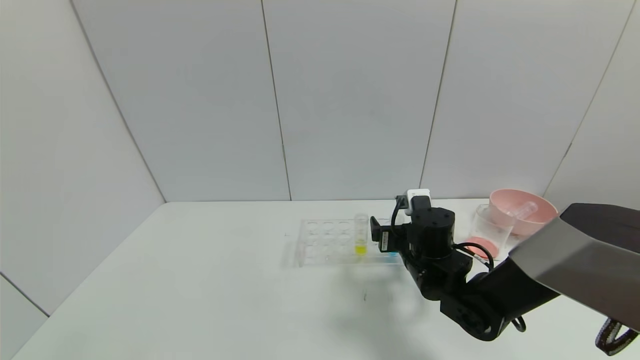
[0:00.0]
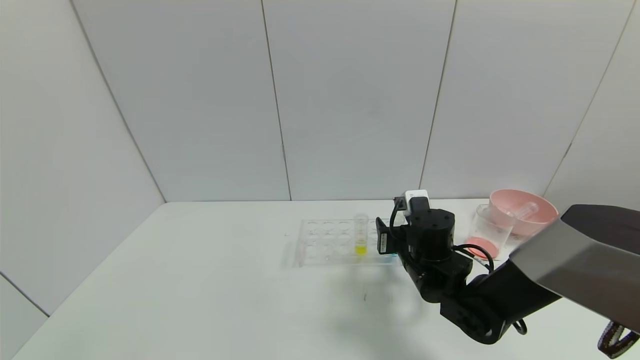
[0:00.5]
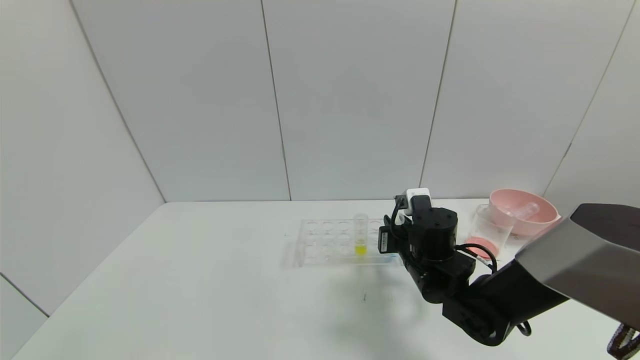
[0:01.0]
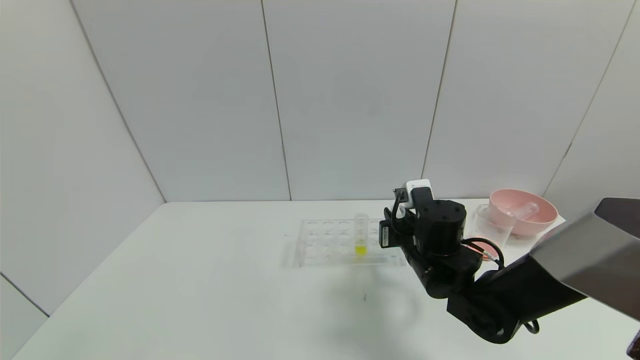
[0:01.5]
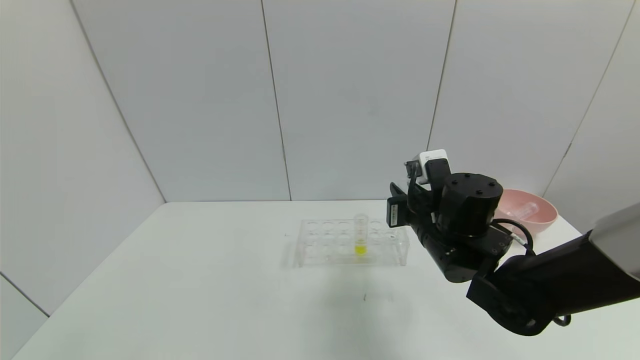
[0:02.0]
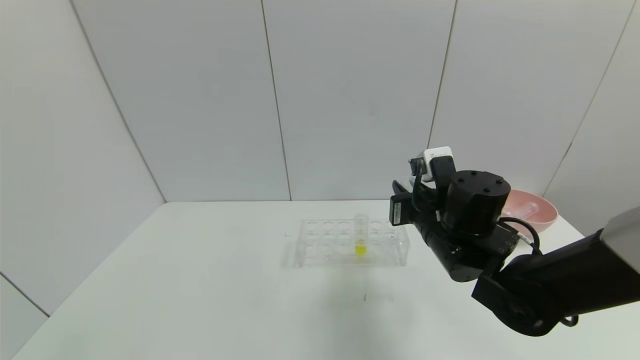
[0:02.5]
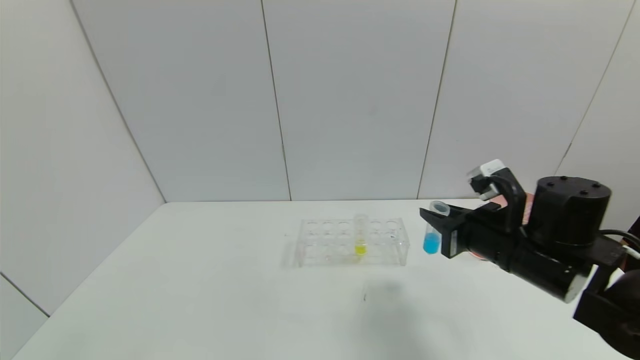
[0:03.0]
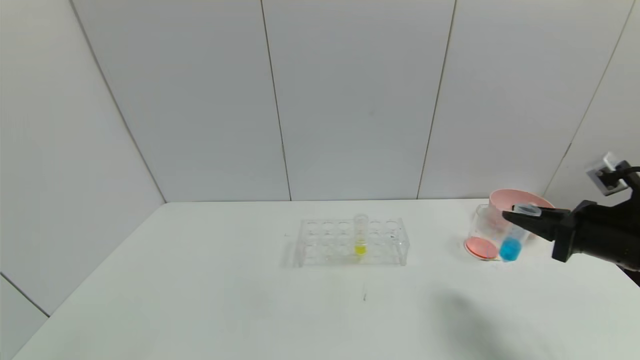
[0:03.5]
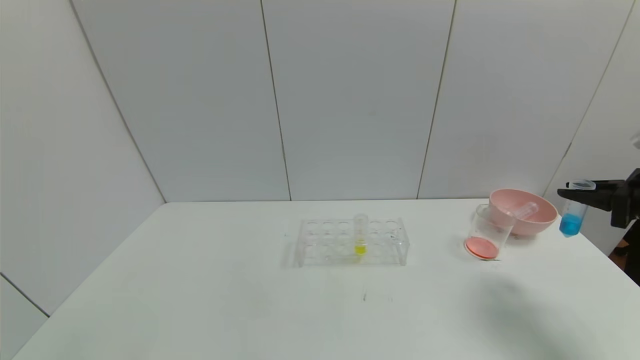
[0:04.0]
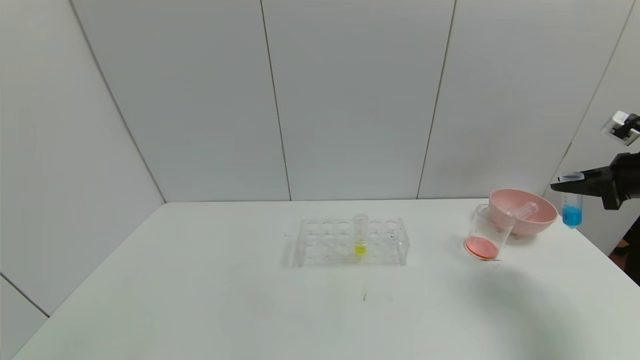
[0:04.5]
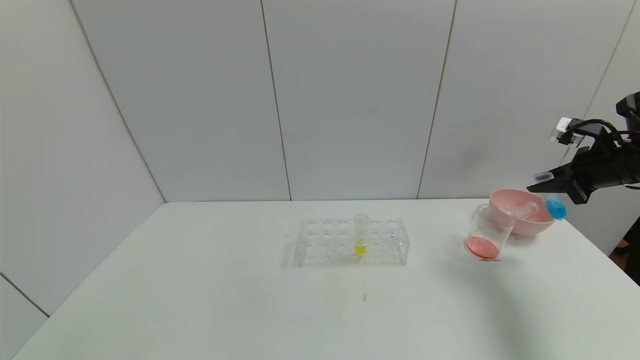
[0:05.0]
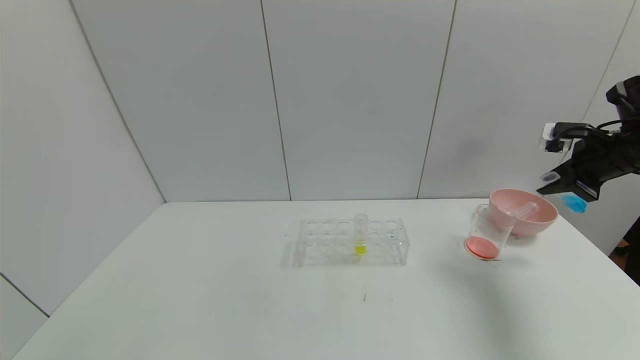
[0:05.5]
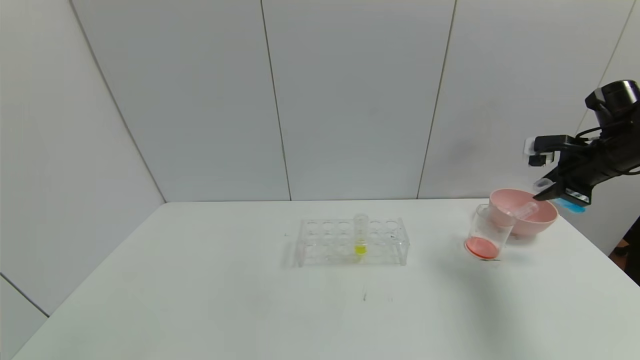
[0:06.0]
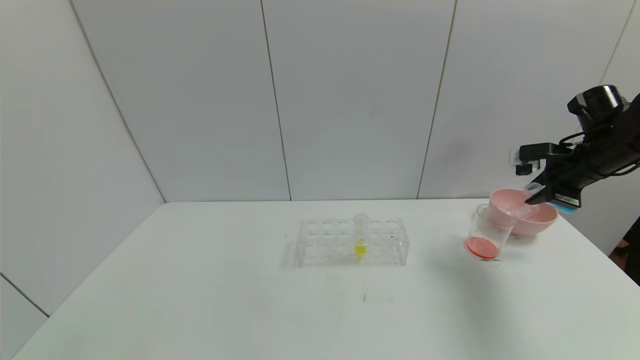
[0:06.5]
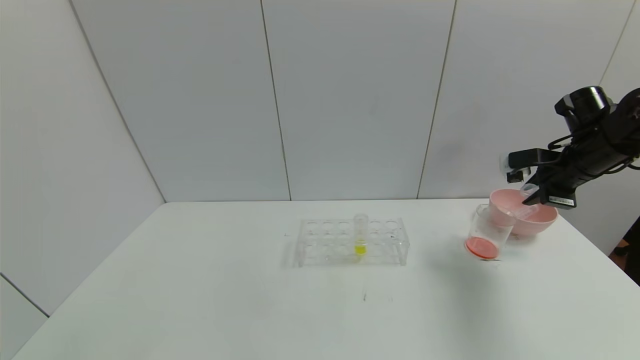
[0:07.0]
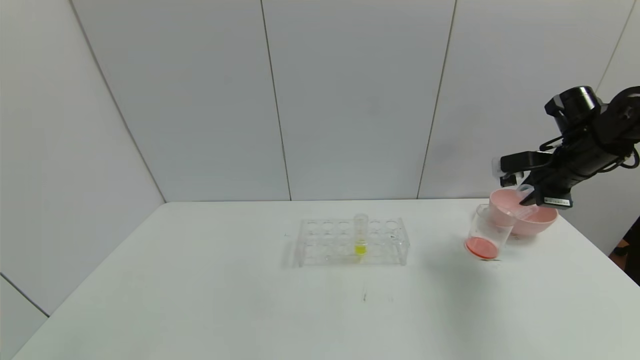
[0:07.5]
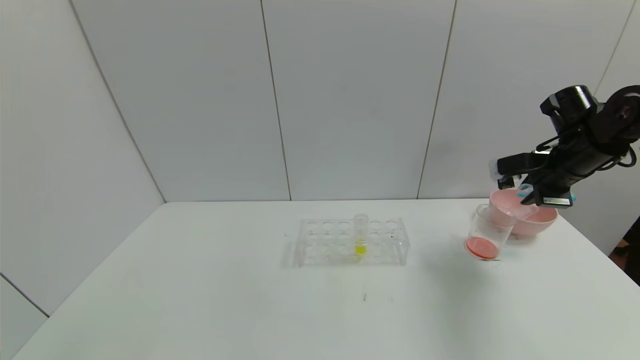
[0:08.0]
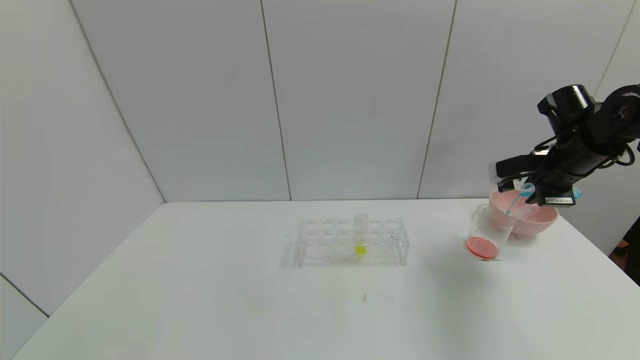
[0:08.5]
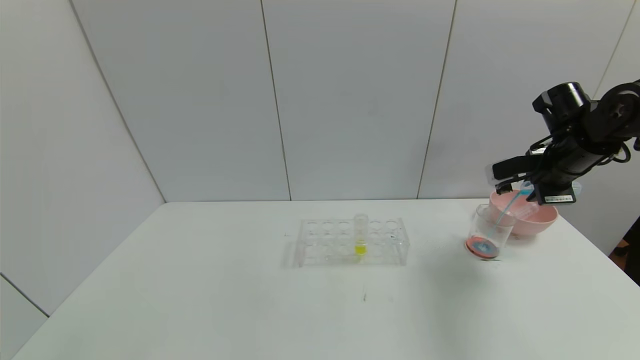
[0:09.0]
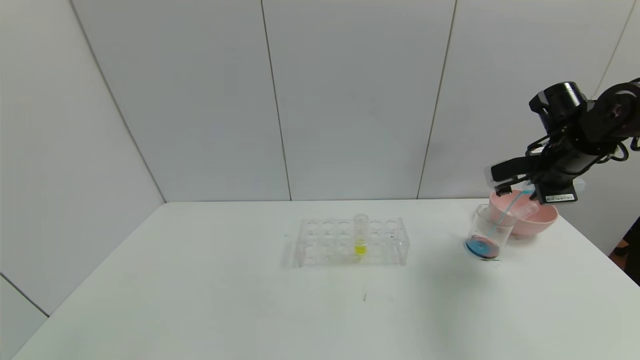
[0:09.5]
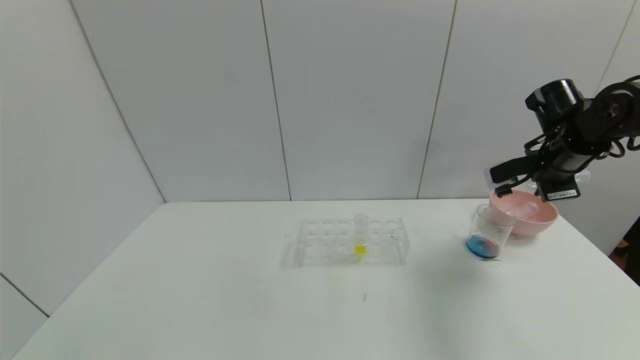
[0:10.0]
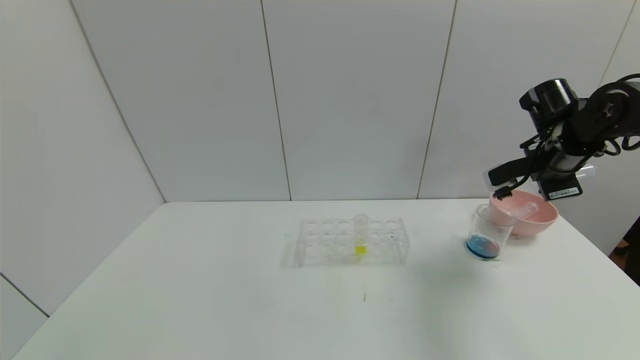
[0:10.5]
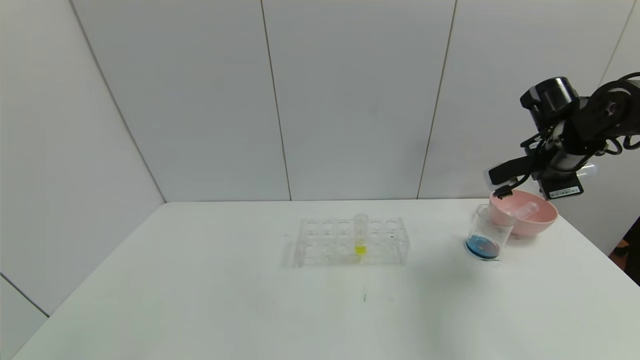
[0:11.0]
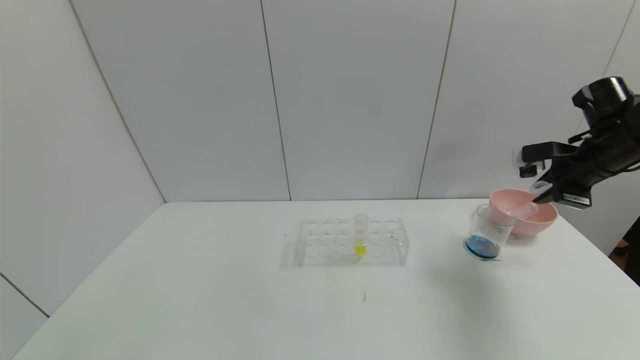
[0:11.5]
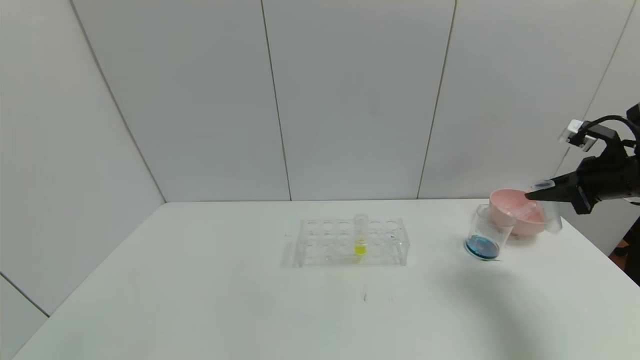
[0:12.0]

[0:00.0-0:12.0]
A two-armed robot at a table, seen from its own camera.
Task of the whole recording: pick up the test tube with red pigment and the test tube with blue pigment by grippers and pour them into the container.
Step, 0:01.0 to 0:10.0: Pour the blue reagent into the graduated cylinder with the right gripper.
0:00.0 to 0:02.0: The right gripper shifts some 10 cm upward, and closes up.
0:02.0 to 0:04.0: The right gripper is displaced to the right by approximately 30 cm.
0:04.0 to 0:06.0: The right gripper moves forward, about 10 cm.
0:06.0 to 0:08.0: The right gripper ends up approximately 5 cm from where it was.
0:08.0 to 0:10.0: The grippers make only small movements.
0:10.0 to 0:12.0: The right gripper travels to the right and backward by approximately 10 cm.

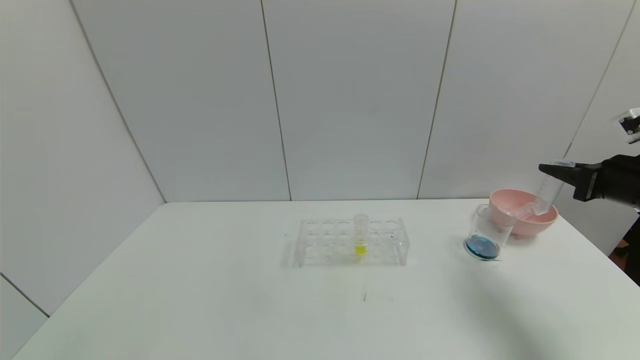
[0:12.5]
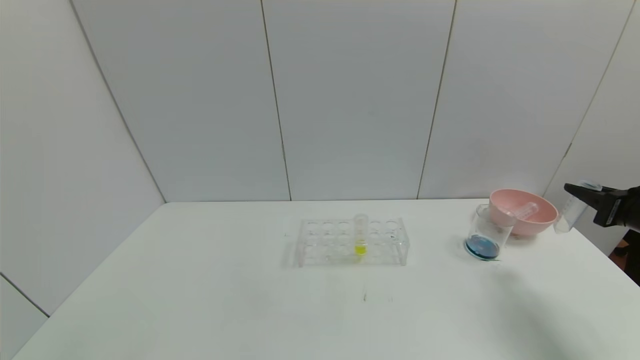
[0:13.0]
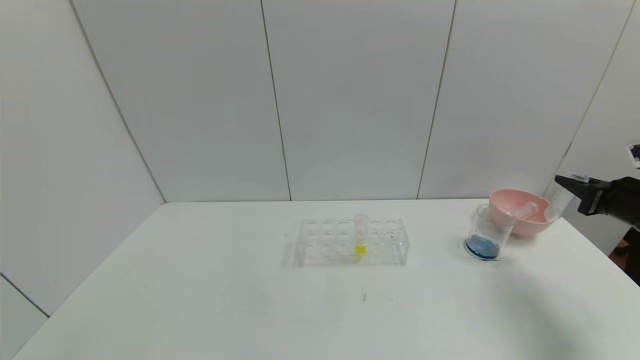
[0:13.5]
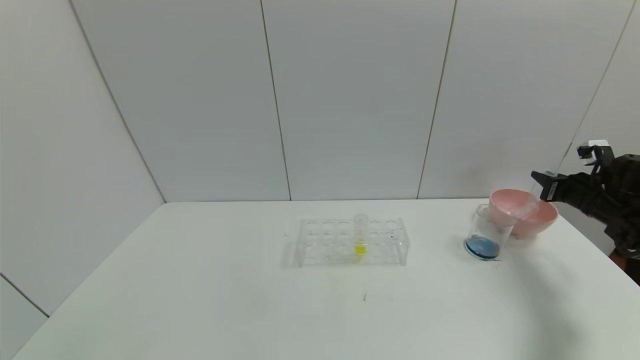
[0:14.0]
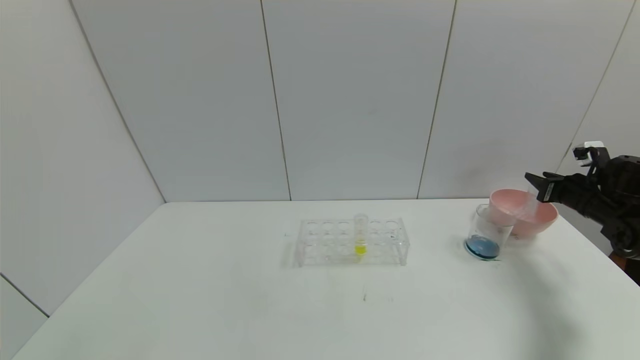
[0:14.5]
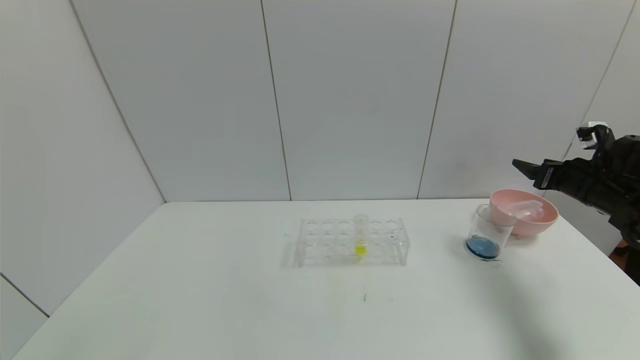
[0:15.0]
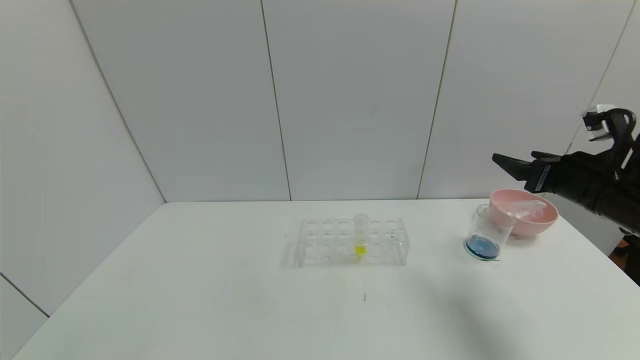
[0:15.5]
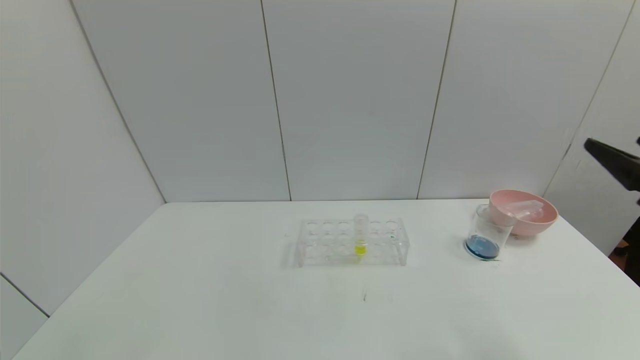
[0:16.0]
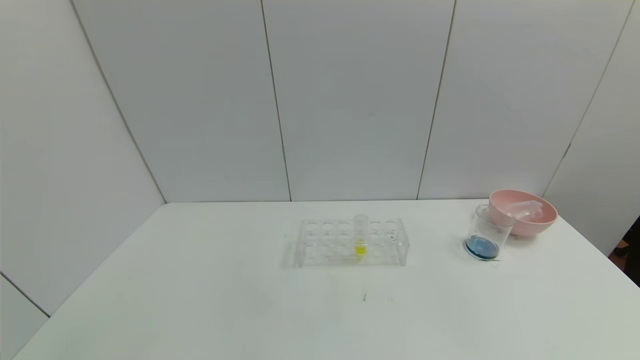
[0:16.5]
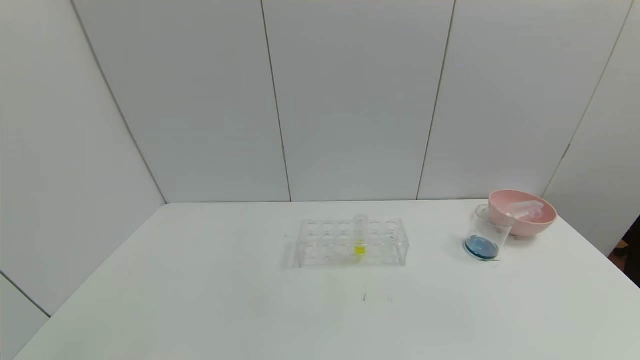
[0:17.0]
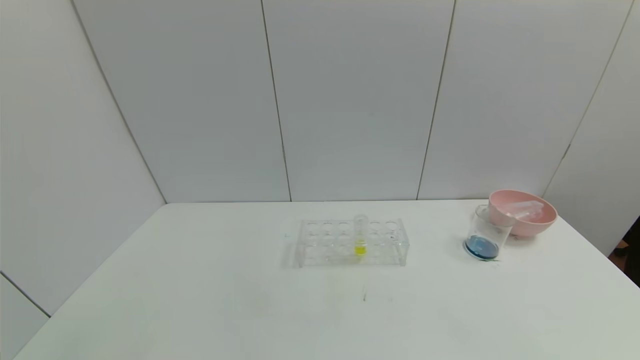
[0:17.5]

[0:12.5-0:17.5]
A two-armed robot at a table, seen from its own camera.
Task of the whole recording: pick up the test tube with red pigment and the test tube with blue pigment by grippers and pour them into the container.
Step, 0:12.5 to 0:15.0: Place the test tube into the bowl with the right gripper.
0:12.5 to 0:15.0: The right gripper travels forward by some 10 cm, and opens its fingers.
0:15.0 to 0:17.5: The right gripper heads backward, covering some 40 cm.
